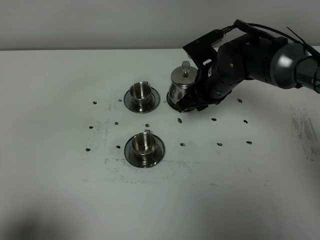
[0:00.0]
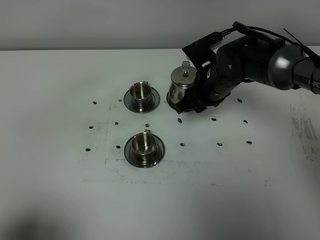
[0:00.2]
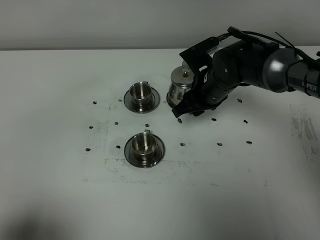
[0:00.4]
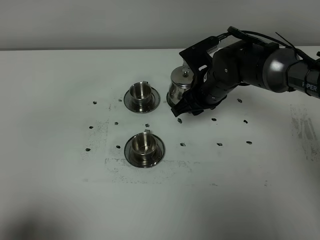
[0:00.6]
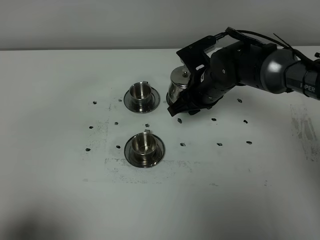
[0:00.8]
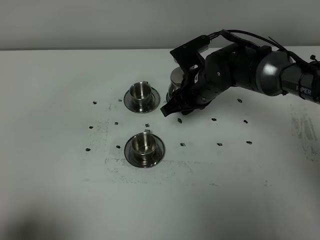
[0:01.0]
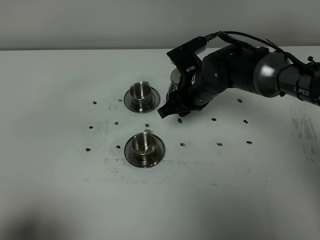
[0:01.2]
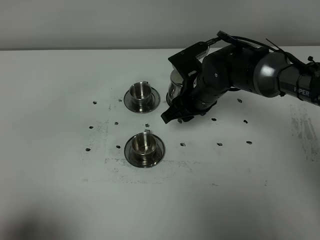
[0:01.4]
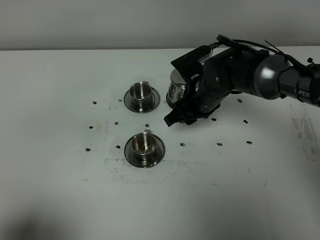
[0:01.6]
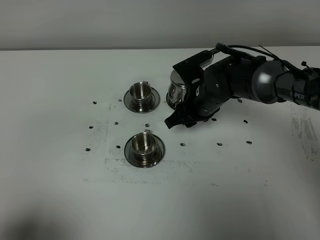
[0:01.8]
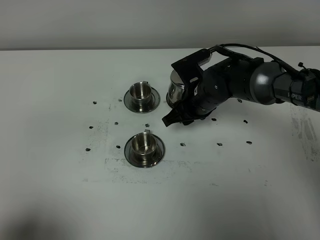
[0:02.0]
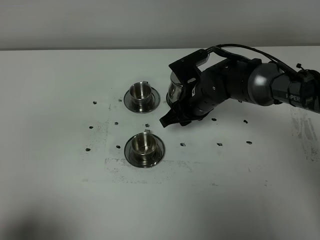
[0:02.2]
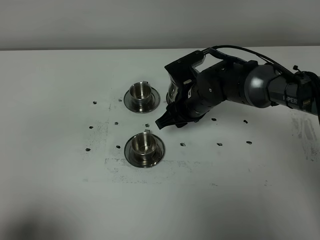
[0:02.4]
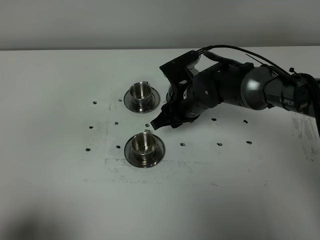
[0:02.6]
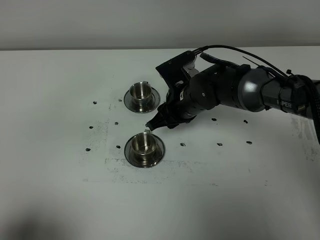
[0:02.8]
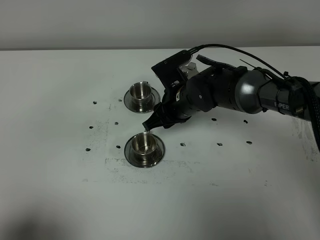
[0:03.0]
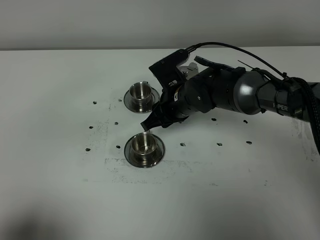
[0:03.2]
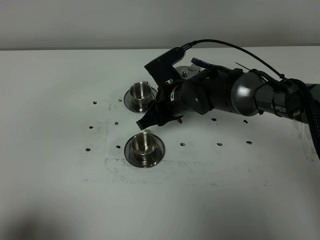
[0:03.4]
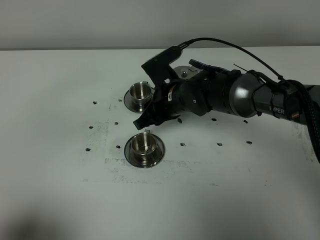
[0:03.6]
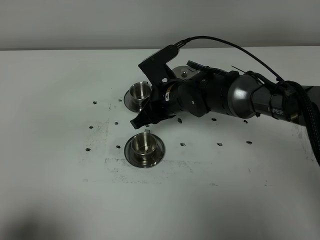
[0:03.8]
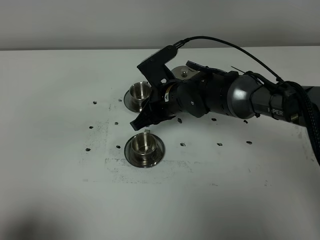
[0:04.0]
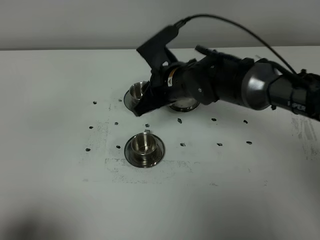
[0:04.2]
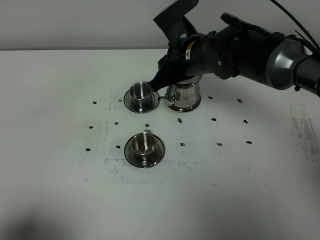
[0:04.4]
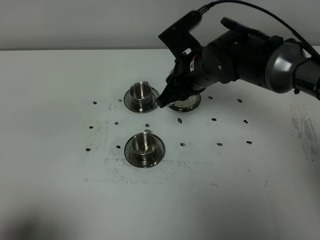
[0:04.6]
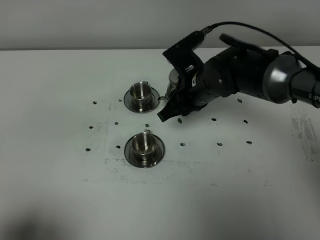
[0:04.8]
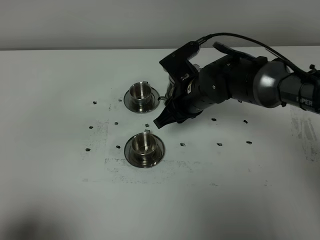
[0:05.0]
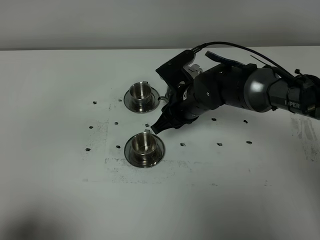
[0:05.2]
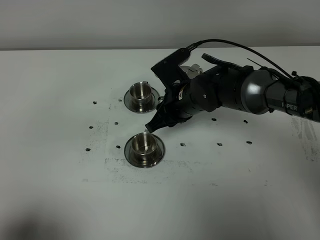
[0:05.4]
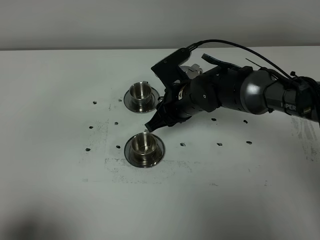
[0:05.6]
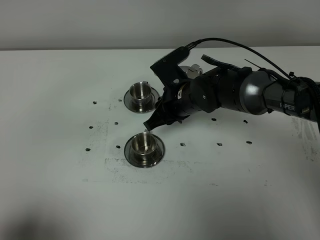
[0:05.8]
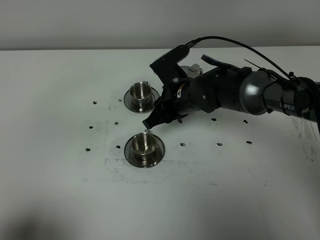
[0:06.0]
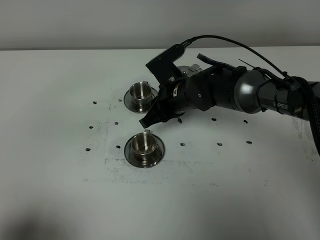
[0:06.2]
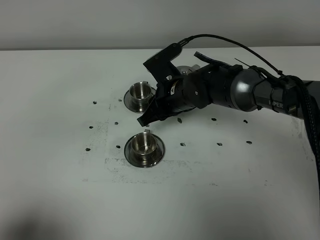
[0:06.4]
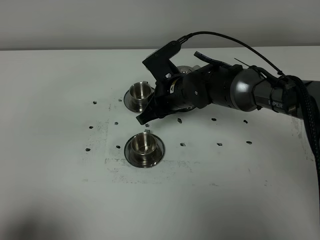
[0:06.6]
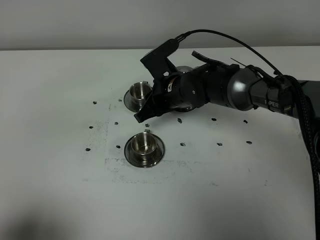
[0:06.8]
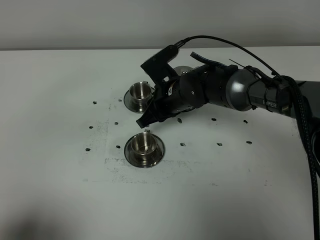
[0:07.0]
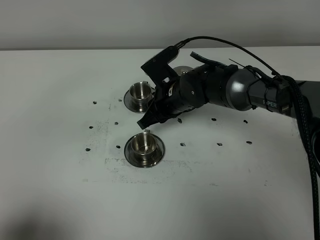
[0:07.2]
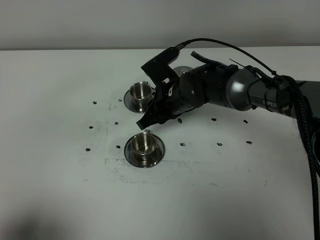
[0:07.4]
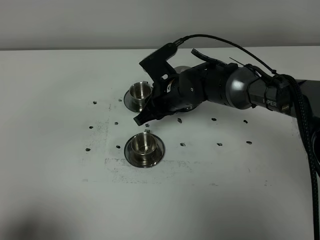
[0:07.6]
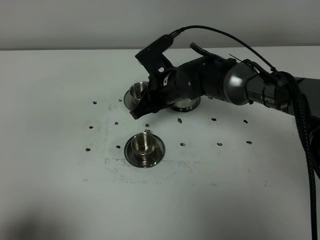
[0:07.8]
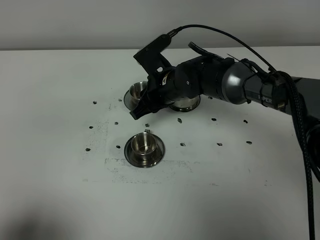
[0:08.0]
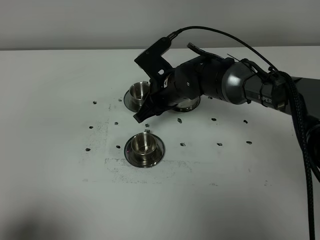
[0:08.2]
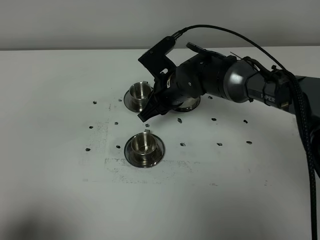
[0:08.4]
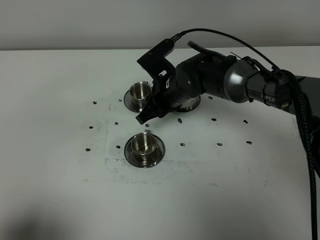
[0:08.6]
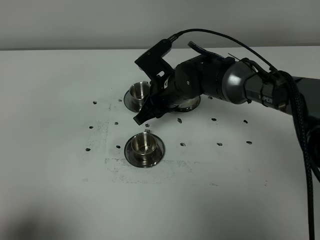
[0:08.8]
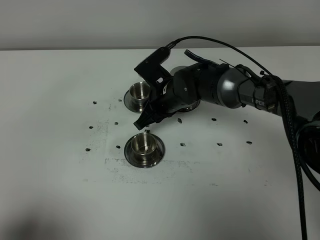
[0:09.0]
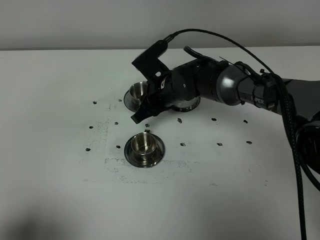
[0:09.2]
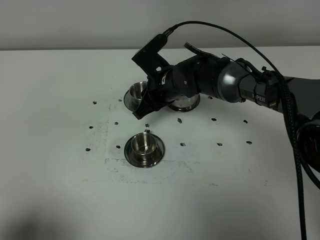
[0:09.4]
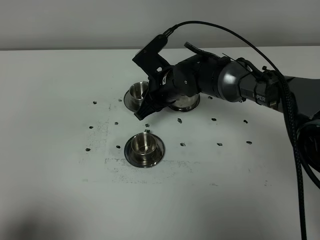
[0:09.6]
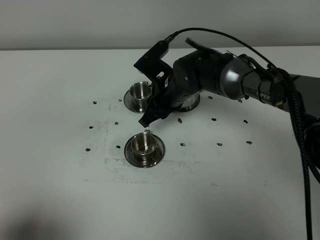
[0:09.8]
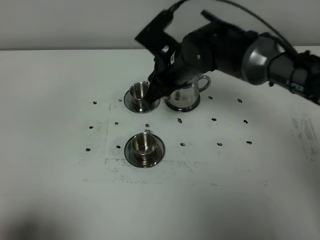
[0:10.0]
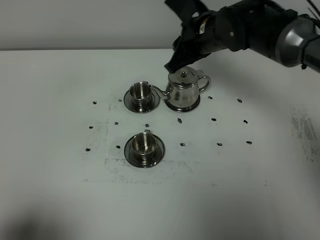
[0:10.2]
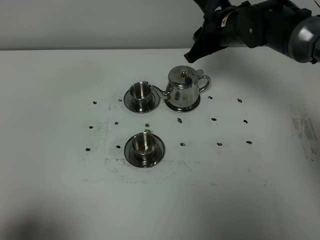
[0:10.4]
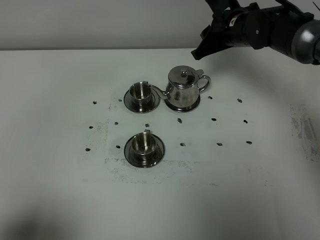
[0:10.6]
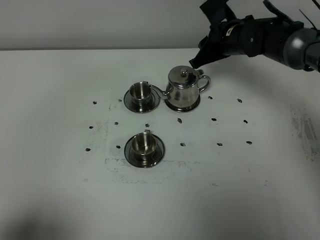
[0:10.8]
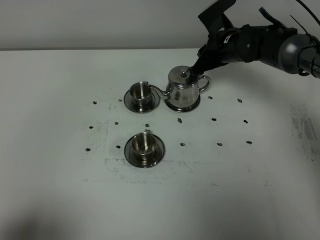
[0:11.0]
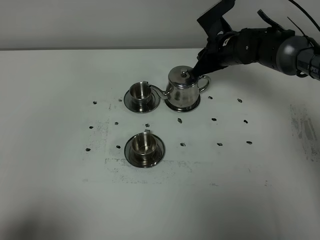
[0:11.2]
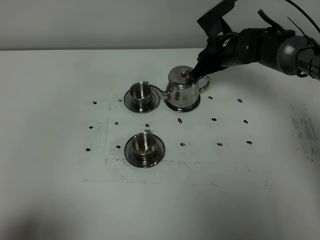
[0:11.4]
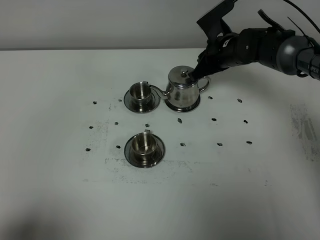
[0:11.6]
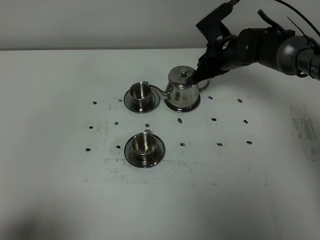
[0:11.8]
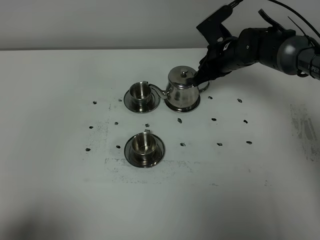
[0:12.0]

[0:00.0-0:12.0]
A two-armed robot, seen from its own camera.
Task of the whole recording: grasp the stainless steel teapot and pour the tea into the two stainless steel teacups one by one, put the stainless steel teapot back in its original place.
0:00.0 to 0:01.6: The grippers move only a little.
0:01.6 to 0:03.0: The grippers move only a little.
0:03.0 to 0:04.4: The right gripper moves upward, roughly 10 cm.
0:04.4 to 0:06.0: The right gripper heads downward, covering roughly 10 cm.
0:06.0 to 0:09.0: The grippers move only a little.
0:09.0 to 0:10.4: The right gripper moves to the right, upward and forward, roughly 15 cm.
0:10.4 to 0:12.0: The right gripper is displaced downward by roughly 10 cm.

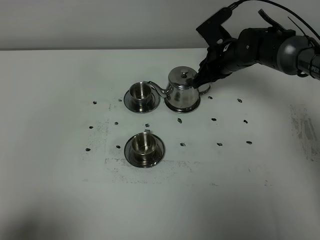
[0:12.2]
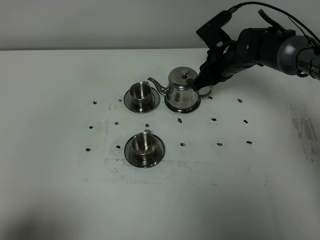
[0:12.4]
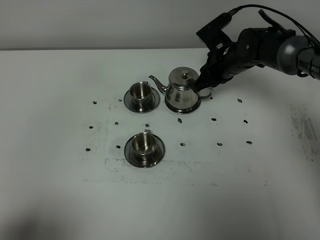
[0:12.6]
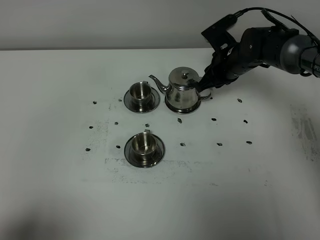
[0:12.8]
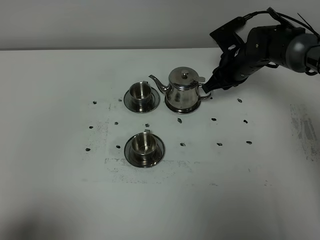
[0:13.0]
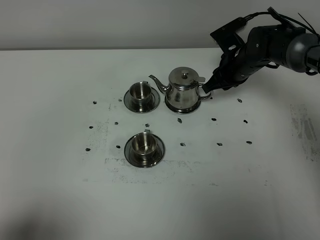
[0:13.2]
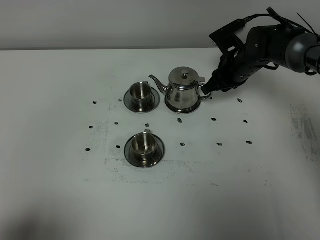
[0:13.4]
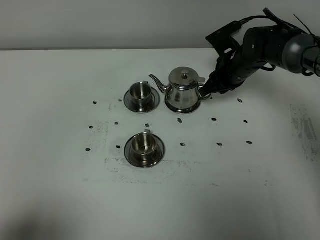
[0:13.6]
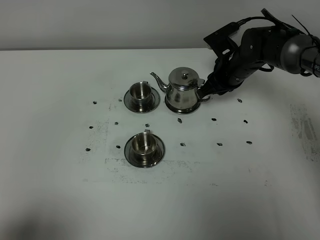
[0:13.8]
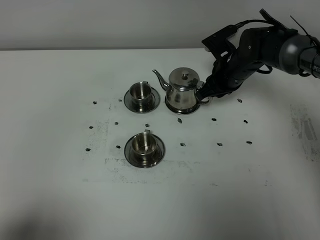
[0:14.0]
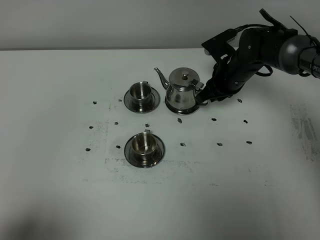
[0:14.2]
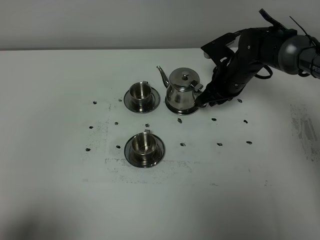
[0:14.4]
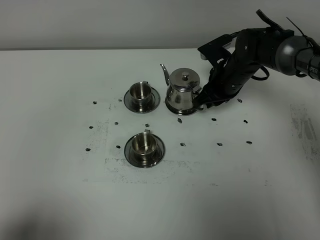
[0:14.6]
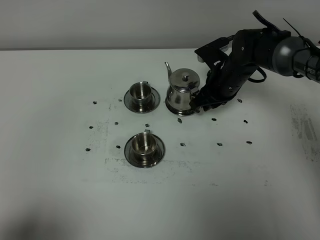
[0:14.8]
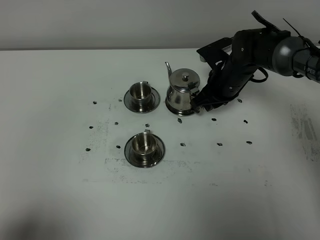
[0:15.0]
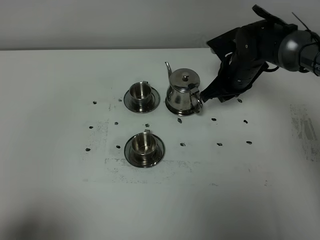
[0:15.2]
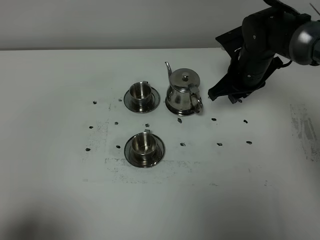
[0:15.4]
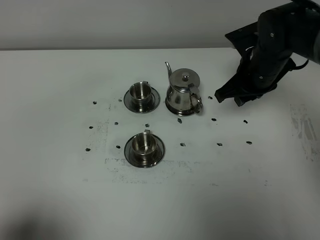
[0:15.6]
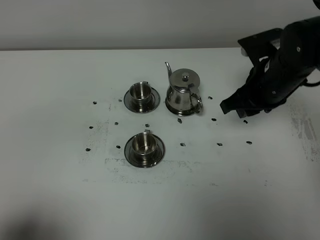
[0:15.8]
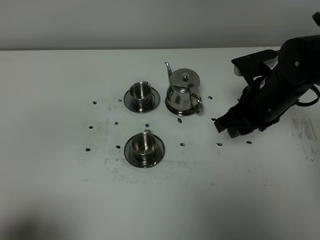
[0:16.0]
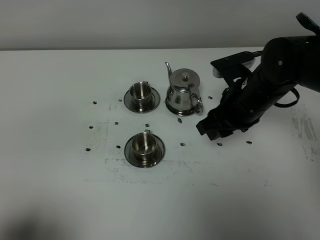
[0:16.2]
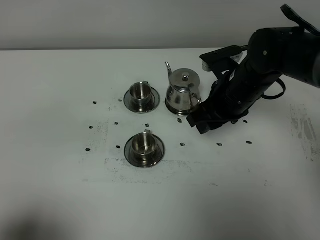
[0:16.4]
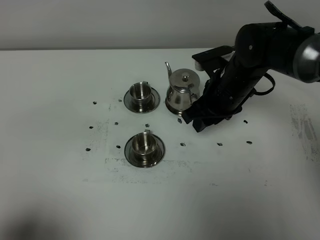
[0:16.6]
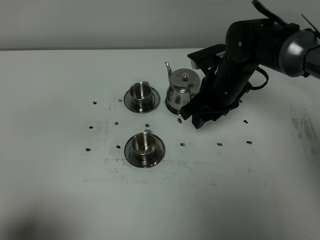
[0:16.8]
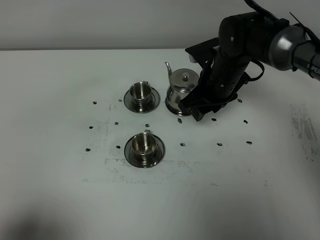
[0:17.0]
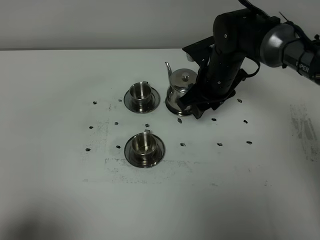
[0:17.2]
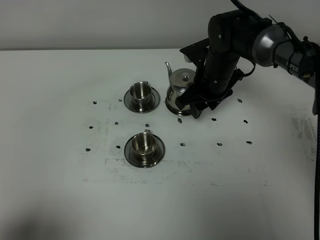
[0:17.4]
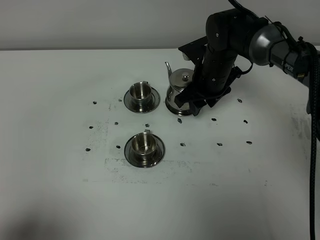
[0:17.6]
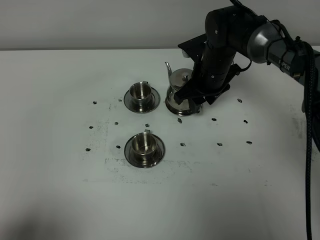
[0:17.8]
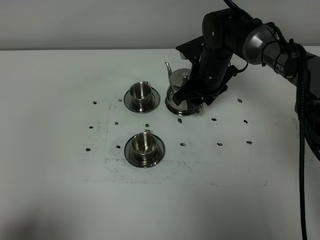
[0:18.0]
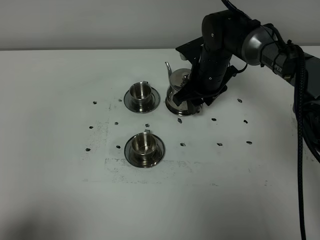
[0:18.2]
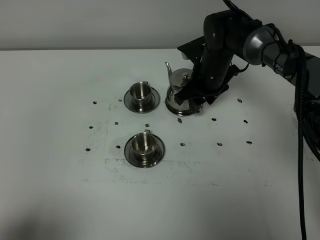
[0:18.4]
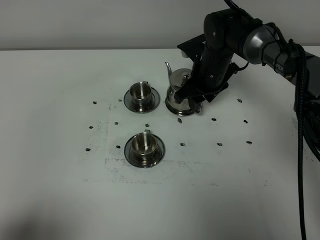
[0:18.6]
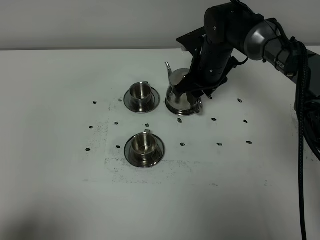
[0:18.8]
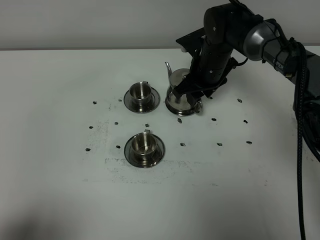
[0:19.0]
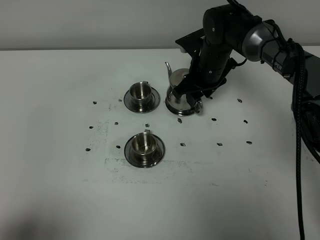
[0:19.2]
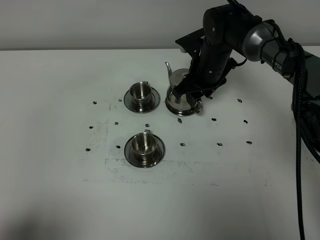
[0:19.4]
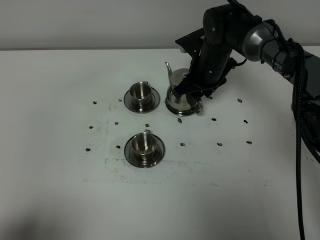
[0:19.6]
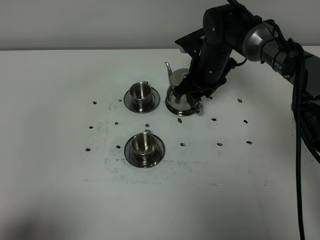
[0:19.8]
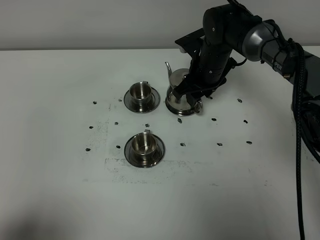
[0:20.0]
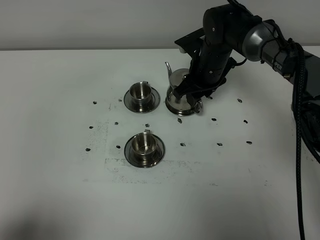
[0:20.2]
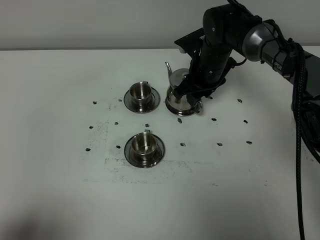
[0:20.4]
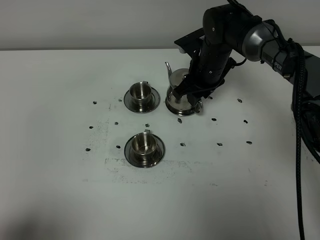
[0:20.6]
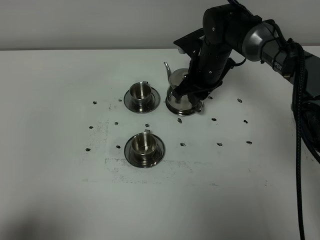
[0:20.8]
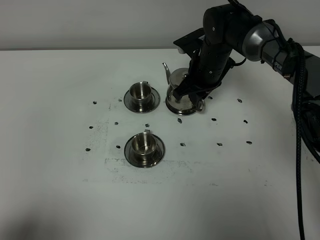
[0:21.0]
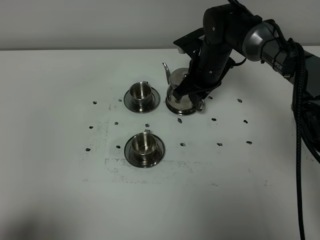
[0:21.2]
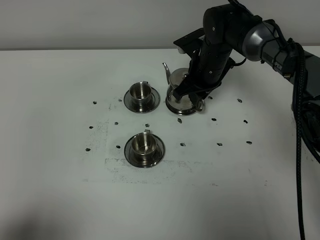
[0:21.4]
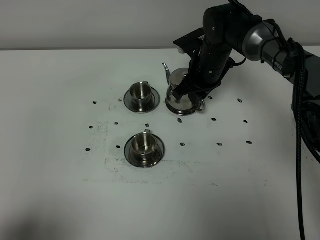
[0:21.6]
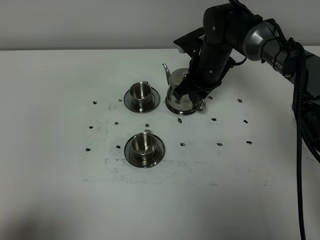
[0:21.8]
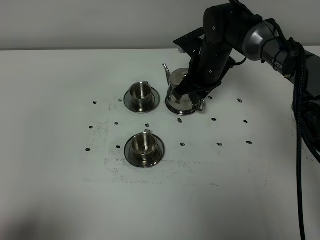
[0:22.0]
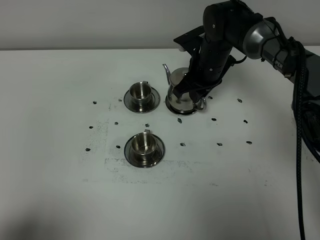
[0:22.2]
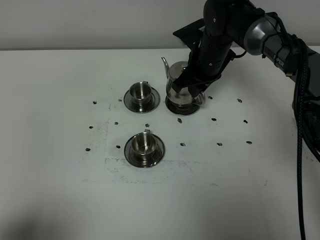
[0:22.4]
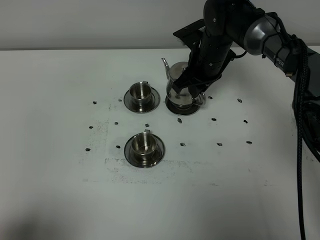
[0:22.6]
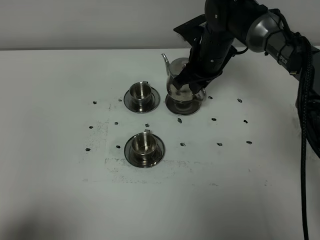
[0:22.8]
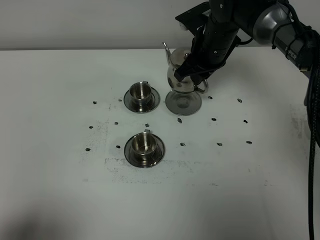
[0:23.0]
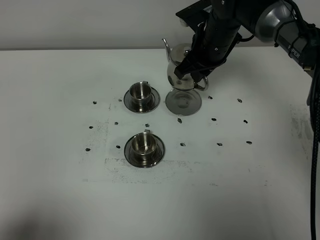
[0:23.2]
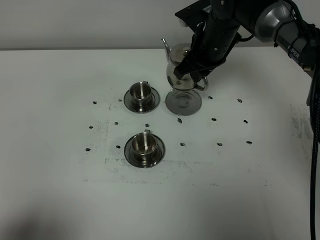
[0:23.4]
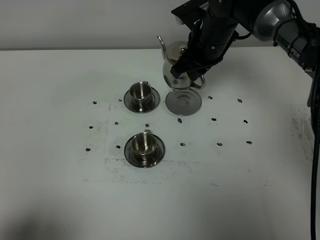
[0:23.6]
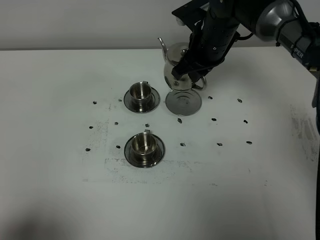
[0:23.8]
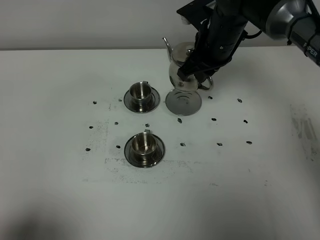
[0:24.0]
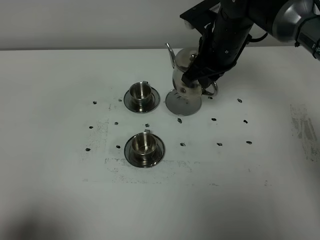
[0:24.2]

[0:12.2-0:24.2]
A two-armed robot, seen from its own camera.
Task of the whole recording: grasp the stainless steel teapot and pour the tea into the two stainless steel teacups one by one, put the stainless steel teapot back in its original place.
Step, 0:12.2 to 0:22.4: Pick up the teapot with the right gripper.
0:12.2 to 0:13.8: The grippers move only a little.
0:13.8 to 0:15.2: There are only small adjustments of the grippers.
0:15.2 to 0:16.6: The right gripper travels backward by some 5 cm, and opens its fingers.
0:16.6 to 0:18.2: The right gripper goes roughly 10 cm forward.
0:18.2 to 0:19.8: The grippers move only a little.
0:19.8 to 0:21.2: The right gripper closes up.
0:21.2 to 0:22.6: The grippers move only a little.
0:22.6 to 0:24.2: The right gripper is displaced upward by roughly 5 cm.
